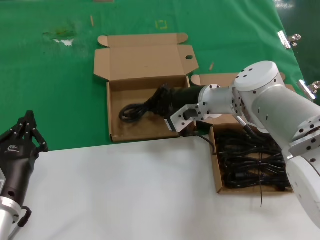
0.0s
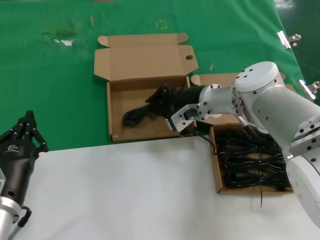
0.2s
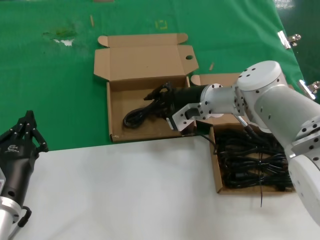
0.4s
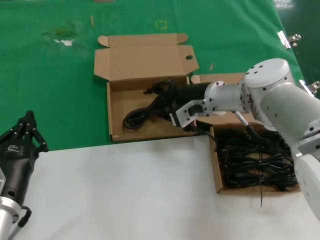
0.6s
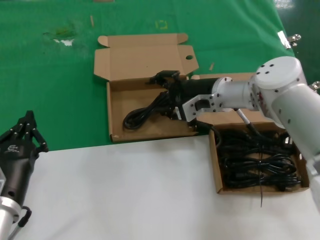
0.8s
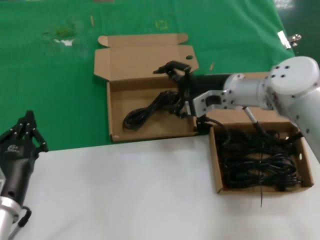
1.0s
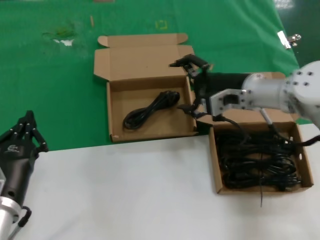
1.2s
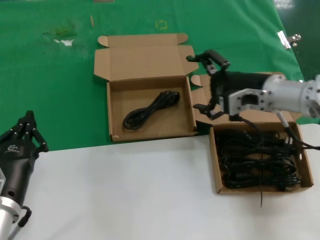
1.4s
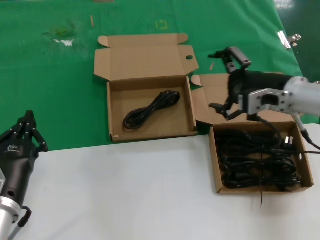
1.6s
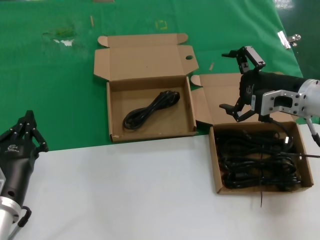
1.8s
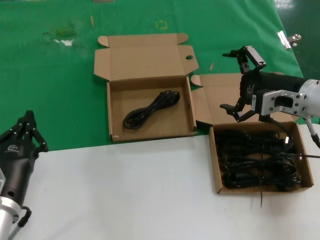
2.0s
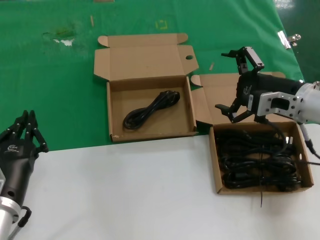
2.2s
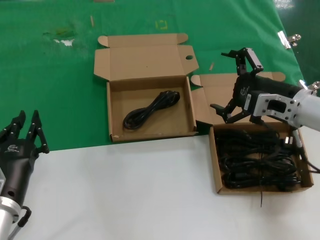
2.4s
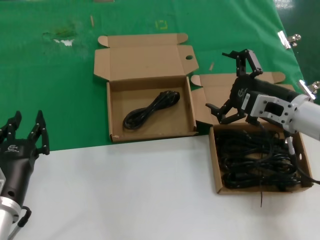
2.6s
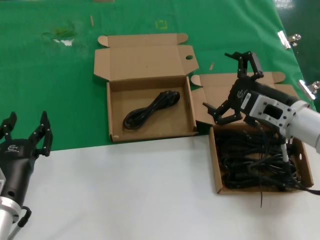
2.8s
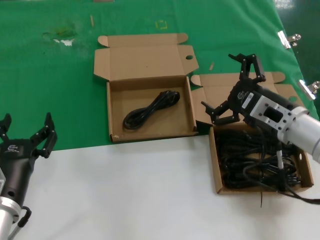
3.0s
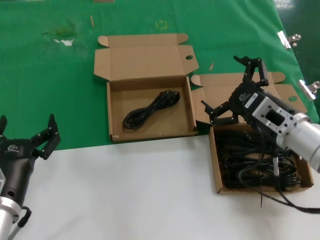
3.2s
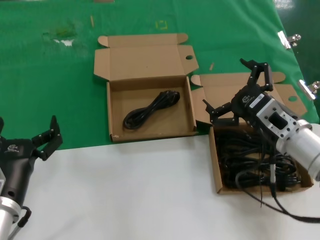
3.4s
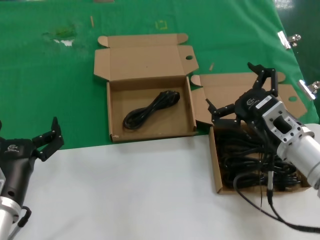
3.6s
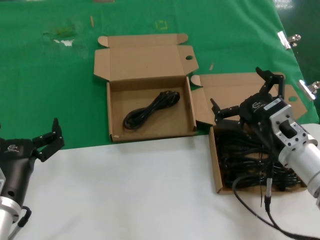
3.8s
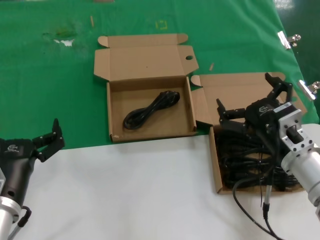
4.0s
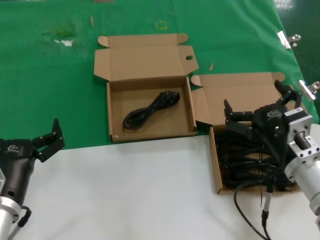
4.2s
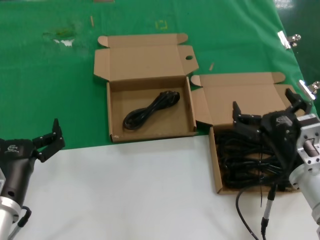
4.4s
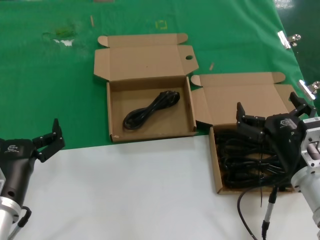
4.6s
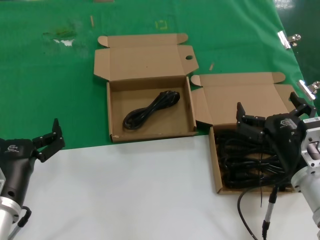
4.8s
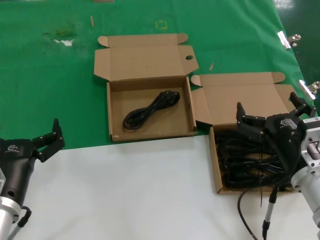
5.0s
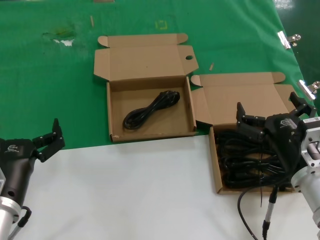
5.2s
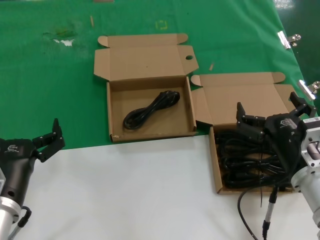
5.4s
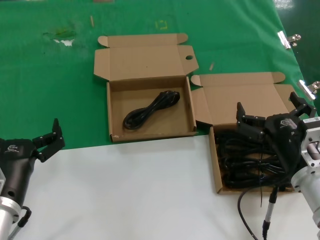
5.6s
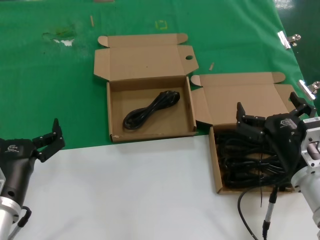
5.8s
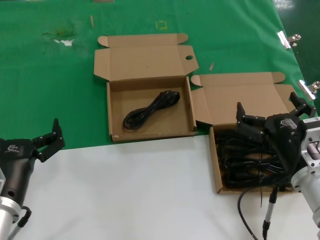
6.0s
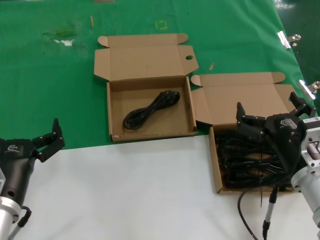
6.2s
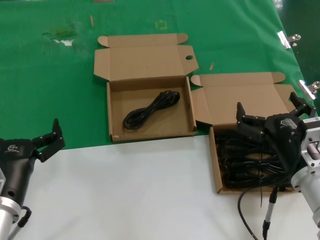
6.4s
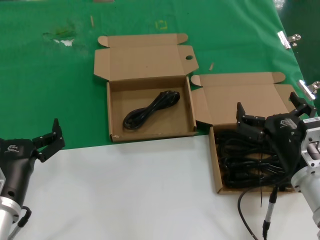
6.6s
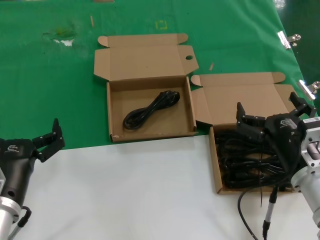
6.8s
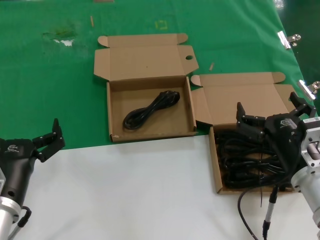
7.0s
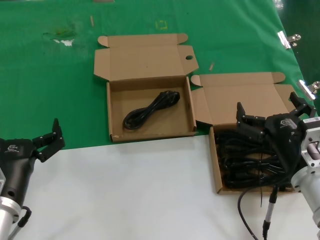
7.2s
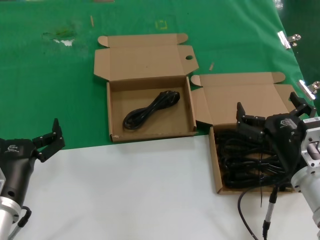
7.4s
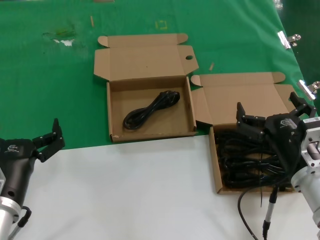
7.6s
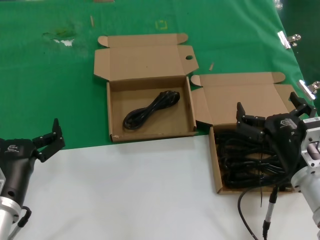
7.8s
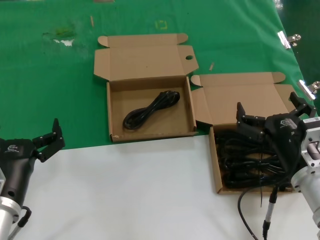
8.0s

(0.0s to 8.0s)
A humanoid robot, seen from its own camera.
Task of the whole recording: take the parts from the box containing them and put them into an empty box.
0.0s - 1.6s: The right hand goes about 15 cm to the right and backward.
1.6s - 3.2s: The right hand moves backward and downward, about 10 cm.
3.2s - 4.8s: The right hand is displaced backward and downward by roughly 10 cm.
4.8s - 8.0s: Both hands stay about where they are.

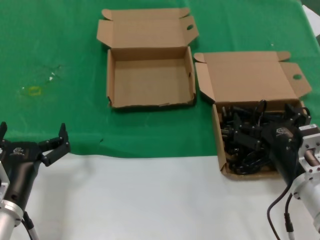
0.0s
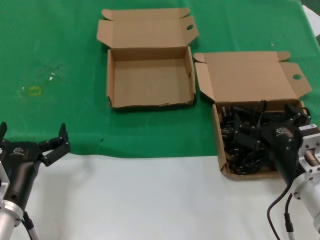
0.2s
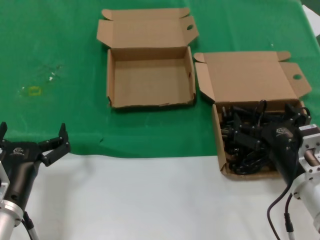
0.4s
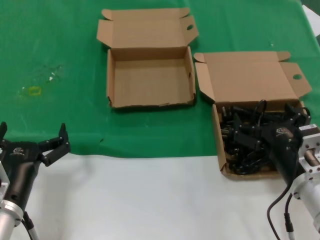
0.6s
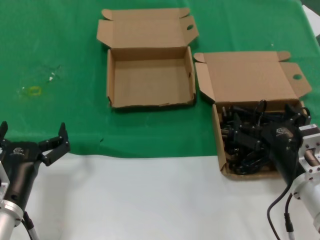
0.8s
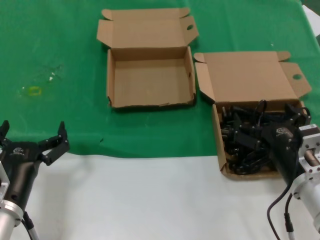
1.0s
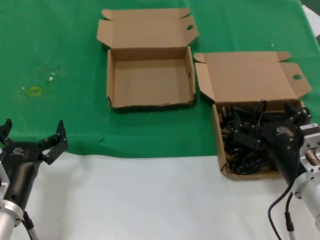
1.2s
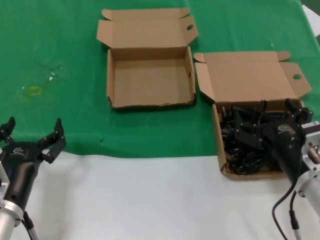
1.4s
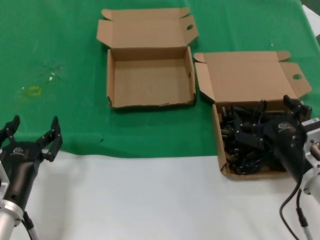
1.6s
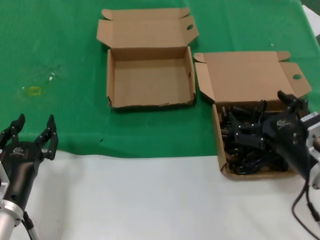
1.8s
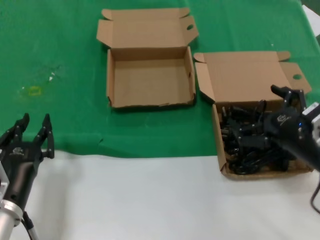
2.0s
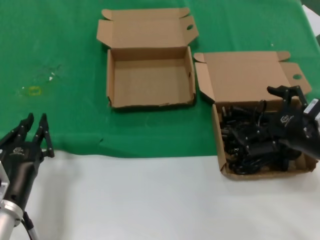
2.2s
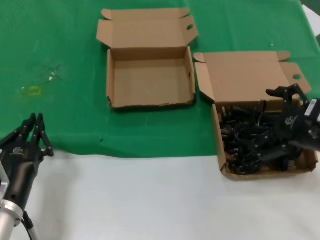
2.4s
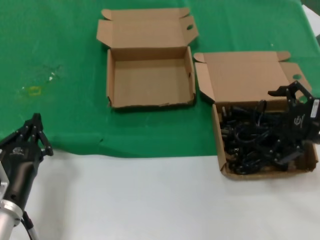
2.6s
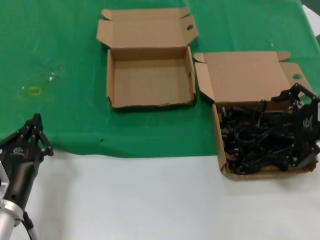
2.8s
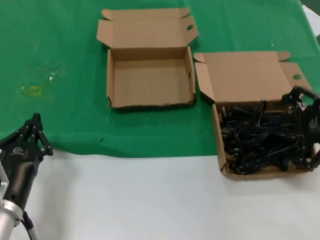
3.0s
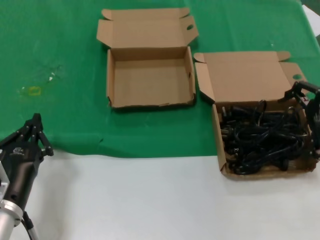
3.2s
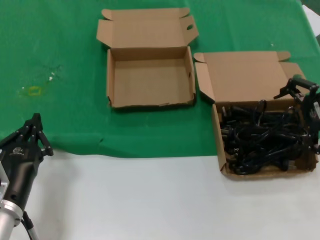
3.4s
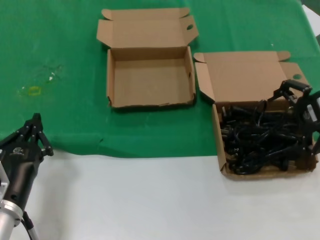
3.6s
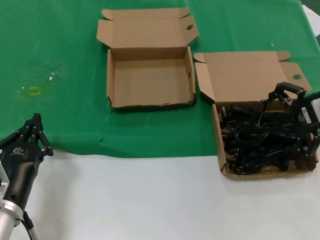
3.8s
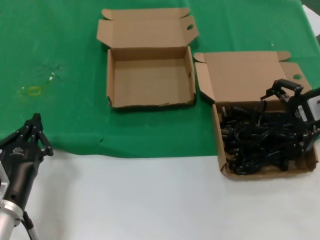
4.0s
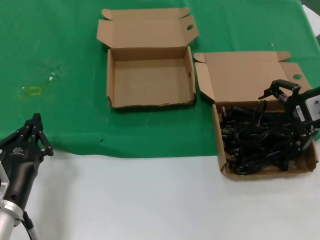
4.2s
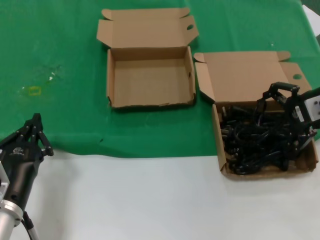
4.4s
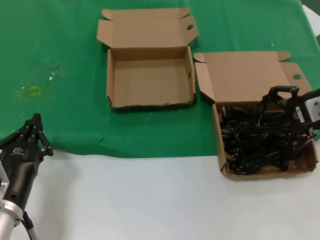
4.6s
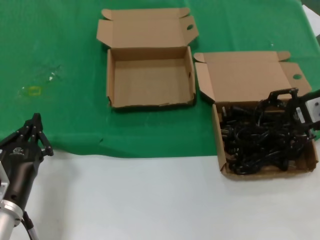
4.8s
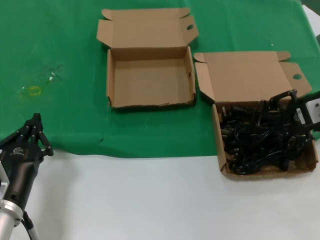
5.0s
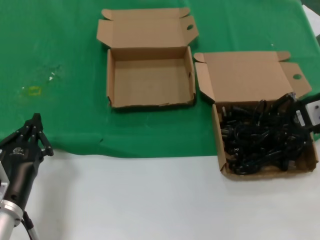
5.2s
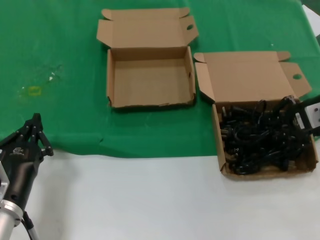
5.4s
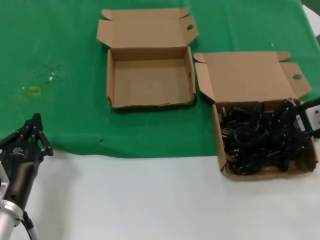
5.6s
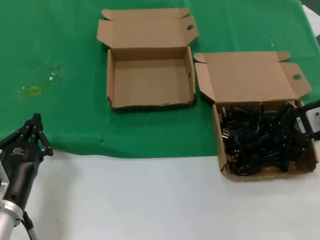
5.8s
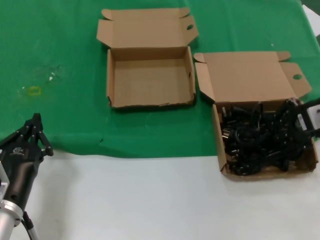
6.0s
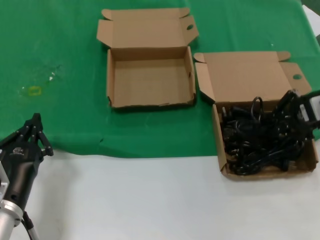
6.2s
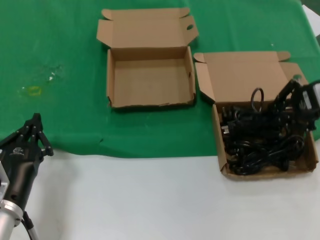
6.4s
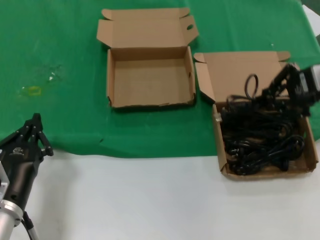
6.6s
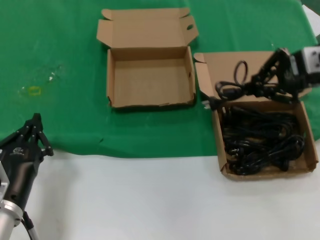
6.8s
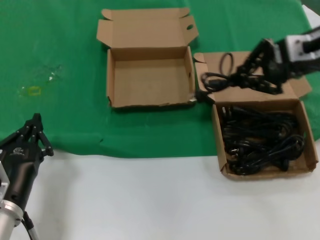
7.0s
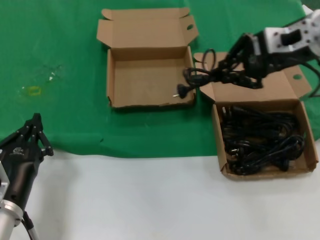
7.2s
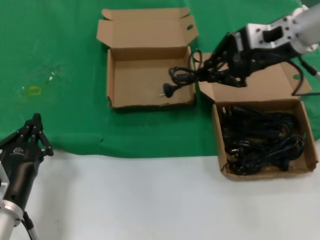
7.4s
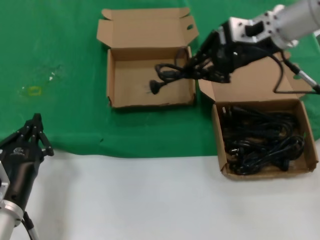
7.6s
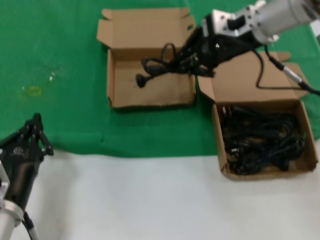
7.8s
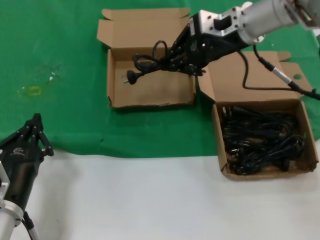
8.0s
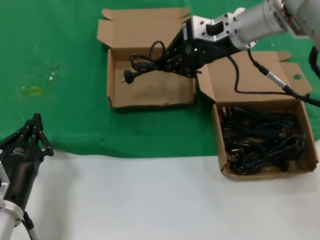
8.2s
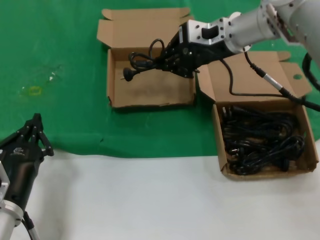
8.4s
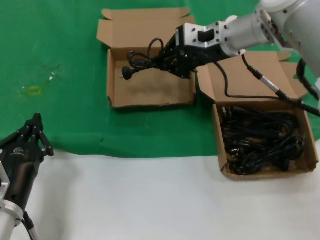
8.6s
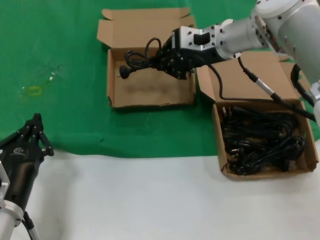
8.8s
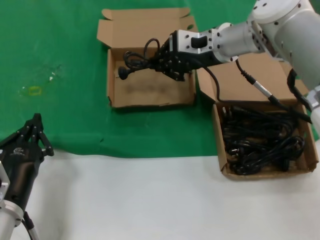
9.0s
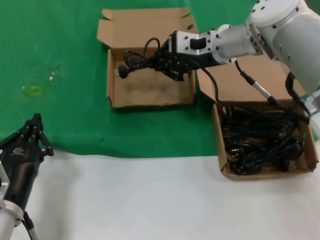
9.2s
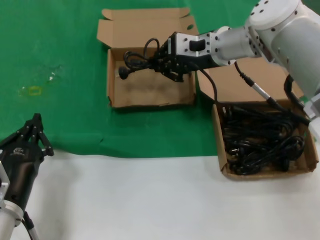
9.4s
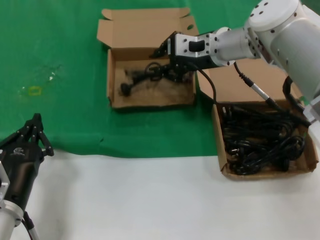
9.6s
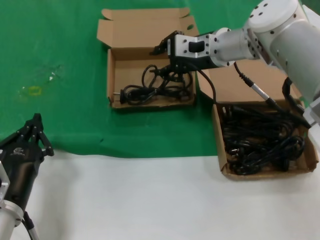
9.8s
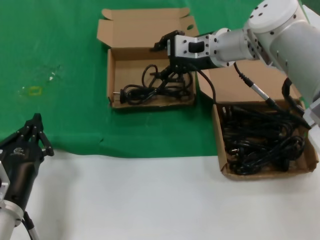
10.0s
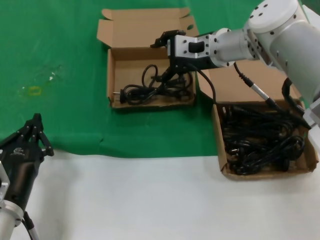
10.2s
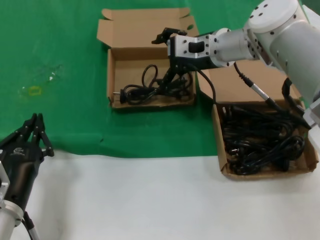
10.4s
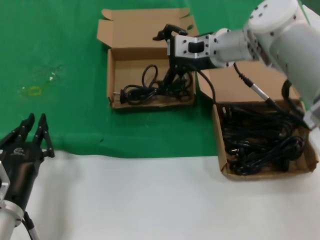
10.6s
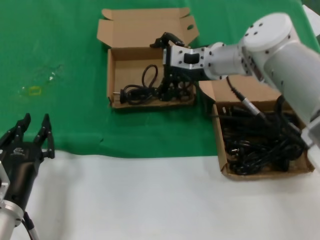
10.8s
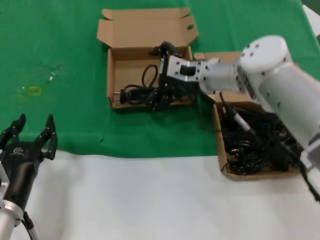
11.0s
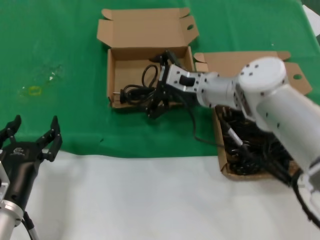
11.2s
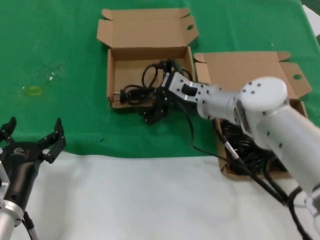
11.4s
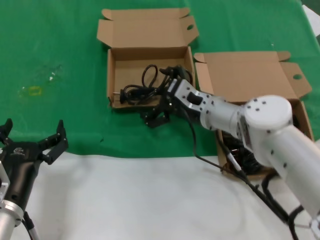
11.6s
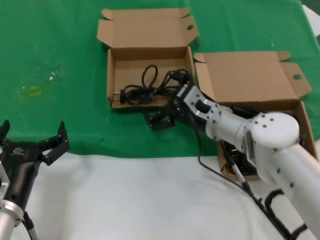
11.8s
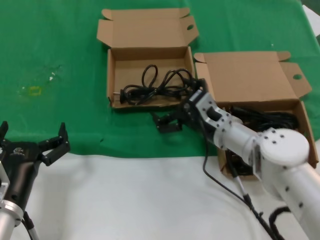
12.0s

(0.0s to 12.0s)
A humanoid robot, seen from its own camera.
Task of the whole recording: take the parts from the box containing them and put them into an empty box.
Step, 0.0s - 6.0s: Grasp the data cable.
Step, 6.2s - 9.8s: Place the data cable in the another box.
0.0s - 1.6s: The hands move only a little.
1.6s - 3.0s: The right hand heads upward, to the right and forward, covering roughly 20 cm.
3.0s - 4.4s: The right hand travels forward by some 5 cm.
4.4s - 6.0s: There are only small adjustments of the hands.
6.0s - 7.6s: The right hand is displaced to the left, upward and forward by some 20 cm.
7.6s - 9.0s: The right hand shifts approximately 10 cm to the left and downward.
9.0s - 10.4s: The hands stay close to where they were, moving slightly.
10.4s - 12.0s: The right hand goes roughly 20 cm downward and backward.

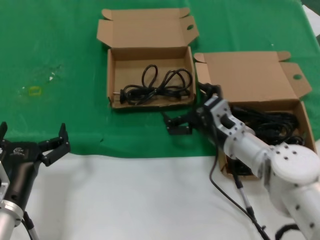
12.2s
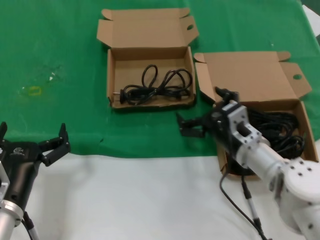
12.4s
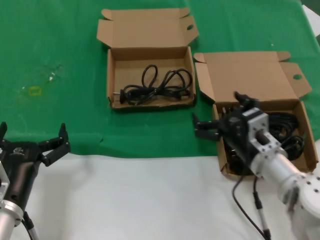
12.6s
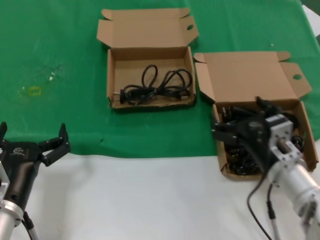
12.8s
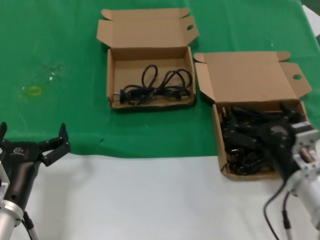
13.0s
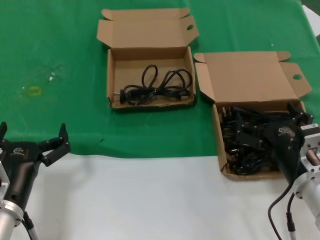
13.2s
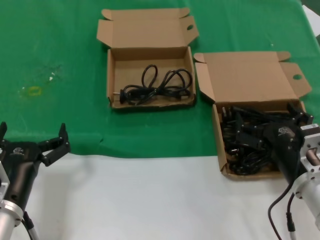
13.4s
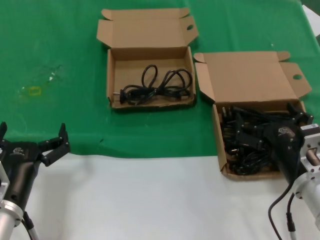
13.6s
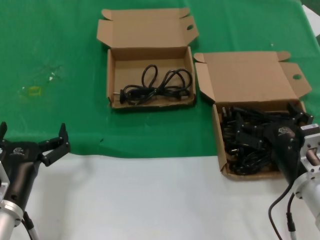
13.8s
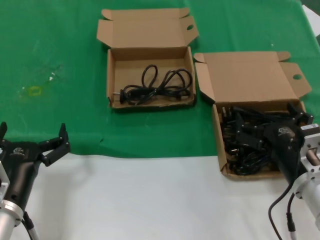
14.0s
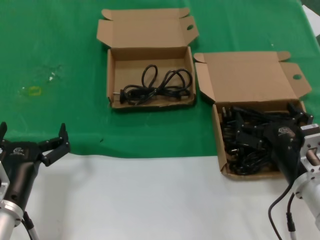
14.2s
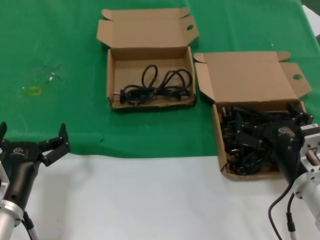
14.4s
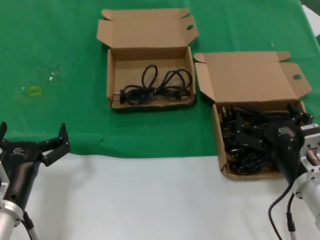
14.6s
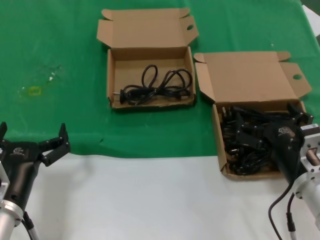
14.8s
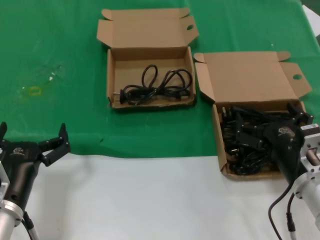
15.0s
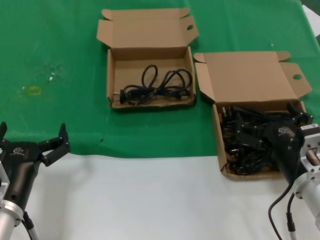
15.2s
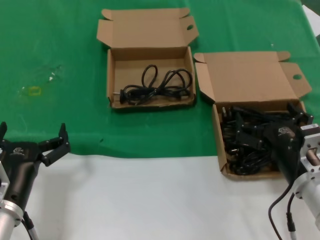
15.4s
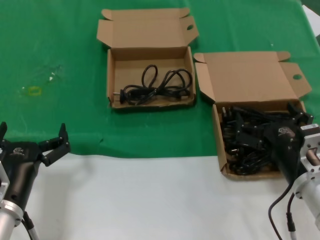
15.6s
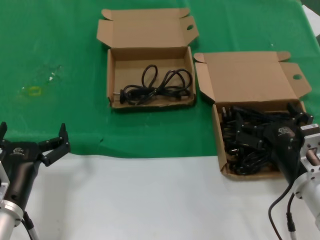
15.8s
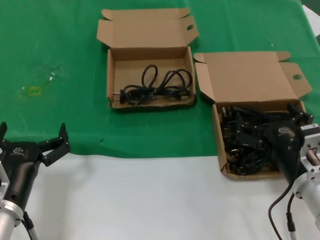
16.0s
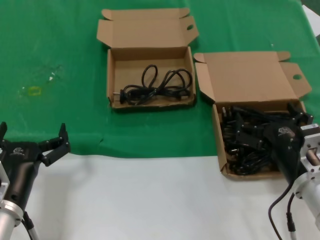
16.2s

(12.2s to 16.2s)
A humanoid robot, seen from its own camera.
Task of the whole recording: take the parts from the box containing them and put them into an empty box.
12.2s - 13.6s: The right hand shifts approximately 15 cm backward and to the right.
13.6s - 16.2s: The two hands keep their place.
